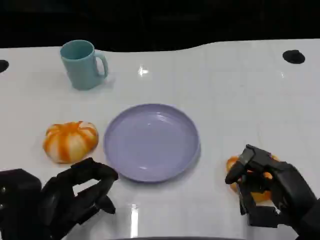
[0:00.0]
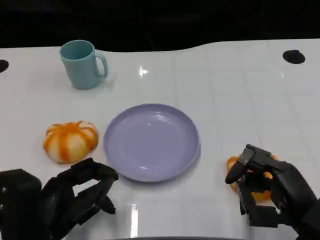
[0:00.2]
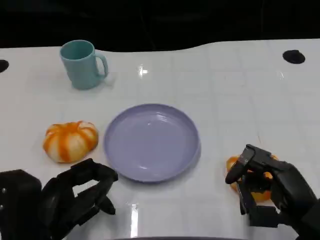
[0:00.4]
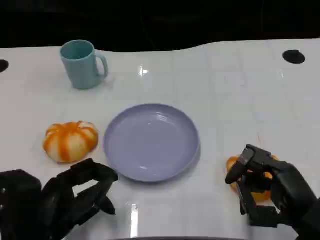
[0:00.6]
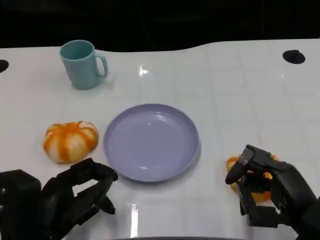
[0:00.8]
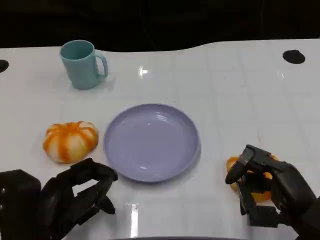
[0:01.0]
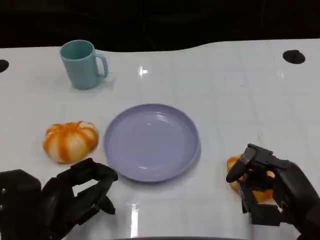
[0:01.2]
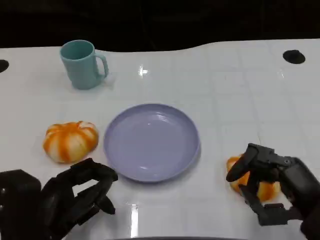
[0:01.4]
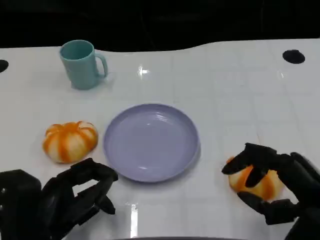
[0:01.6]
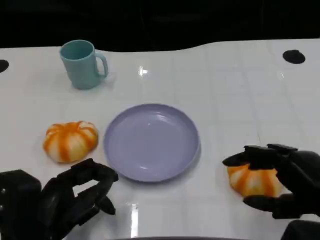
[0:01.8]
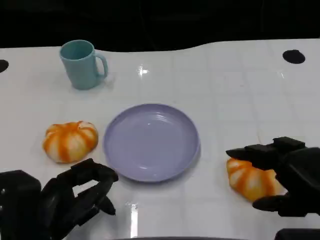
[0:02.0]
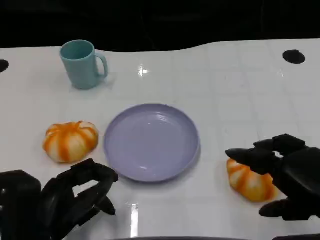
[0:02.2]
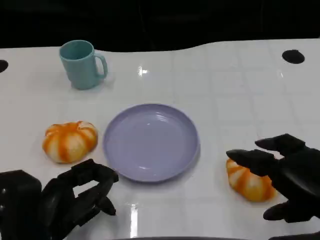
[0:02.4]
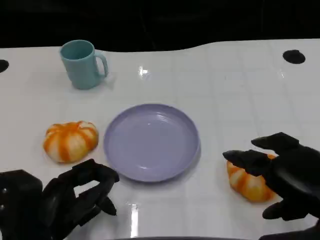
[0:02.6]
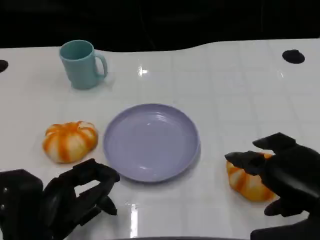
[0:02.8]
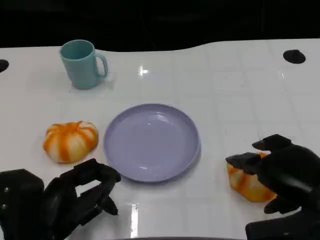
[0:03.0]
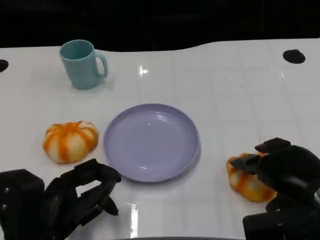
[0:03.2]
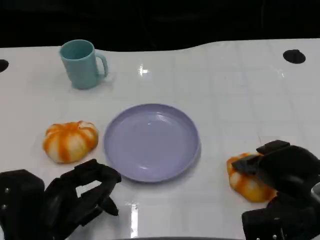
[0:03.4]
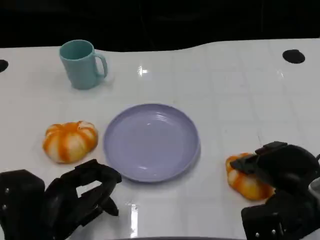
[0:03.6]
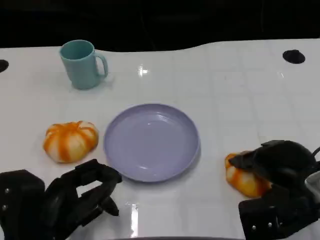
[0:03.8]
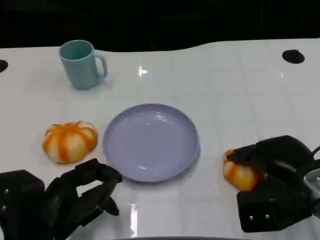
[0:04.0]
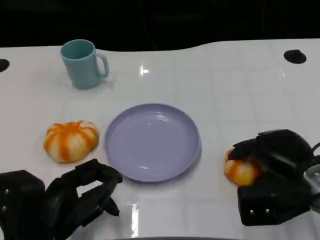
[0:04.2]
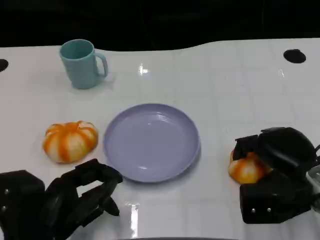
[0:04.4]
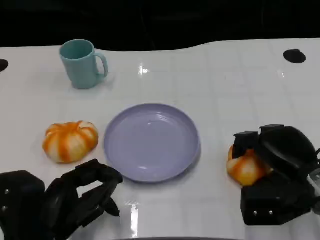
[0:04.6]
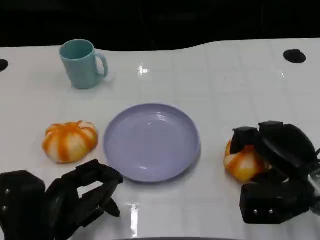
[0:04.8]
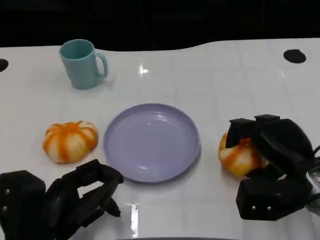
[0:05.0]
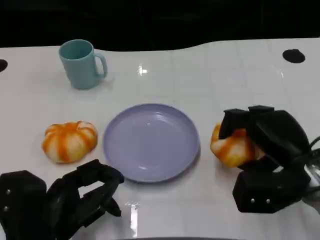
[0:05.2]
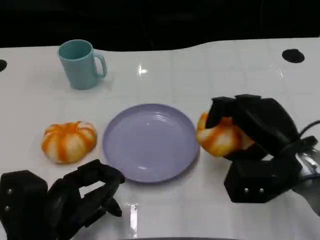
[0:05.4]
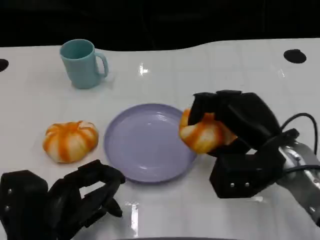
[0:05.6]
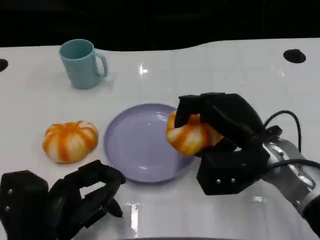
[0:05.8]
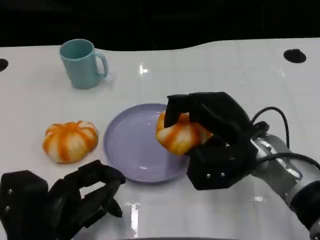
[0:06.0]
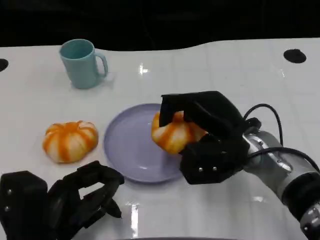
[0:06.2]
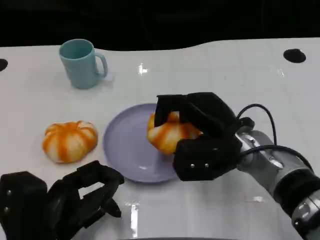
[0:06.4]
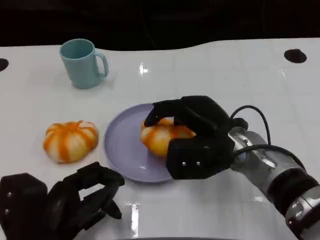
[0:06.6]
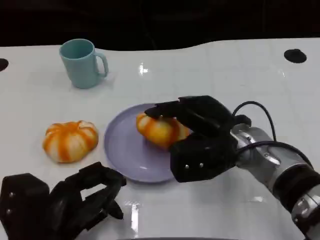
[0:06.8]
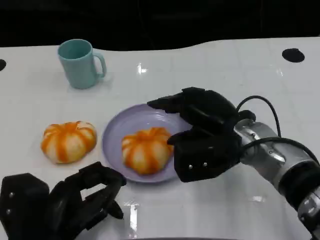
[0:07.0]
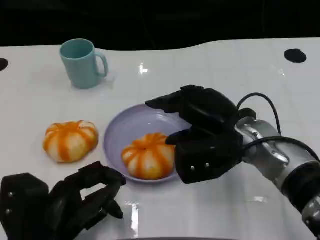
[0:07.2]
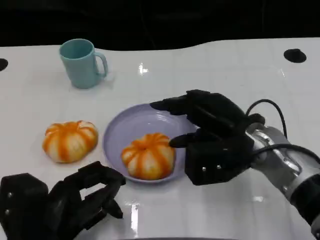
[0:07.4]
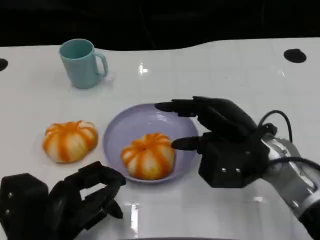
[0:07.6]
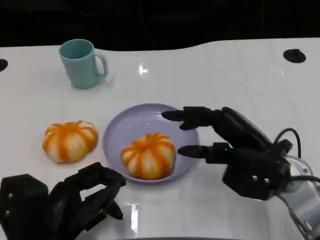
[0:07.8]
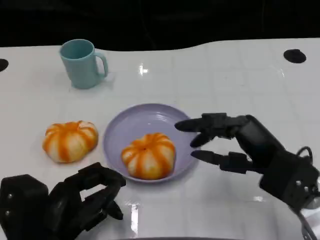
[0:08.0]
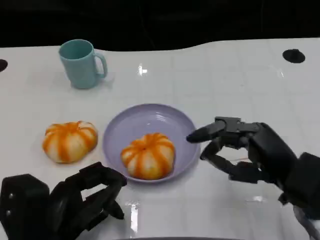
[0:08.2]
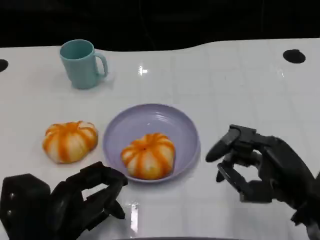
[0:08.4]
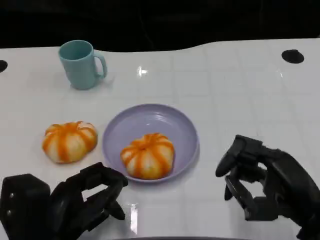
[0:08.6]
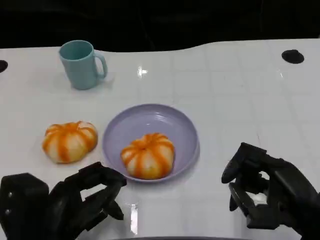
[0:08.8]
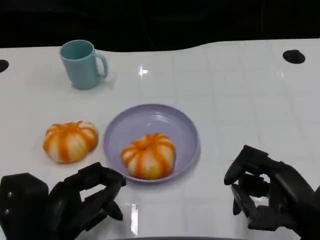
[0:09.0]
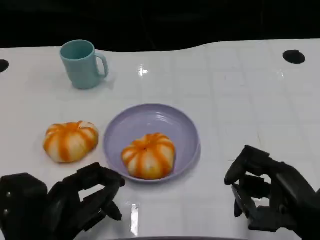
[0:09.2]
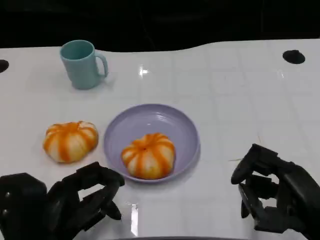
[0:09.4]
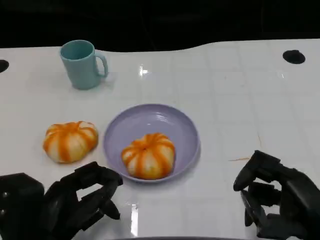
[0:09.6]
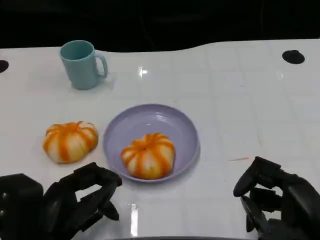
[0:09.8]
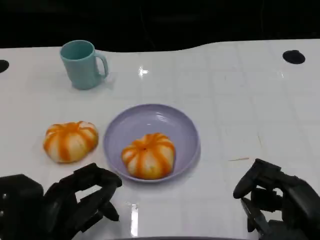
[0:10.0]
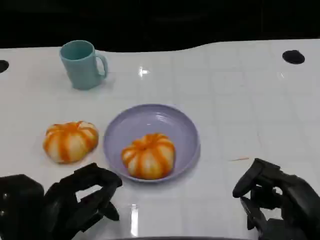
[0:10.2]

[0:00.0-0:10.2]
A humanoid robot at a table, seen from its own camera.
Task of the whole recording: Grasp the bread from the table and place it into the plate.
0:00.0 to 0:01.4: The hands move only a little.
0:03.0 to 0:04.4: The right hand is displaced forward by roughly 5 cm.
0:04.4 to 0:05.8: The right hand travels to the left by approximately 10 cm.
0:05.8 to 0:07.2: The hands stay close to where they were, moving slightly.
0:07.2 to 0:08.8: The right hand travels backward and to the right by about 15 cm.
0:08.8 to 0:10.2: The hands stay close to where they were, moving slightly.

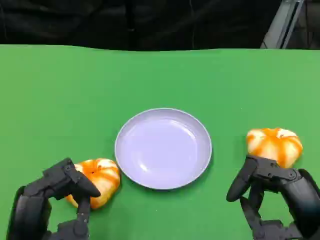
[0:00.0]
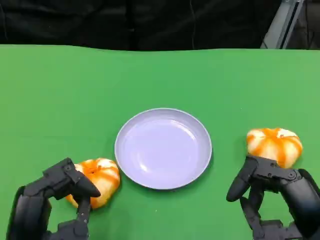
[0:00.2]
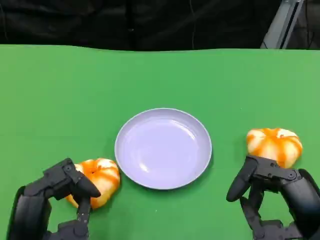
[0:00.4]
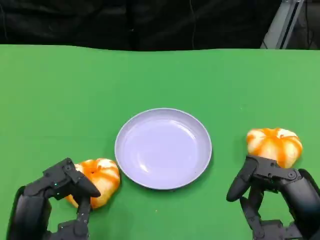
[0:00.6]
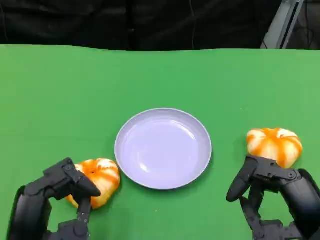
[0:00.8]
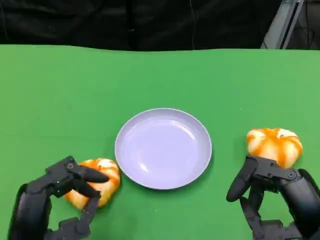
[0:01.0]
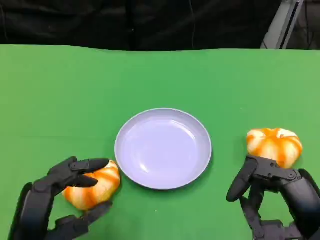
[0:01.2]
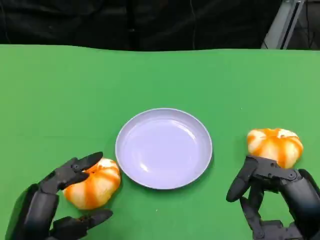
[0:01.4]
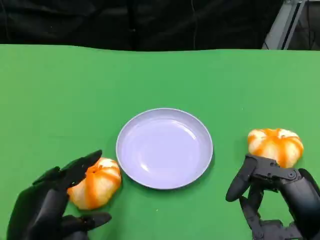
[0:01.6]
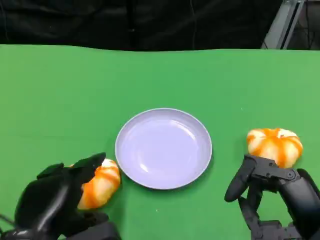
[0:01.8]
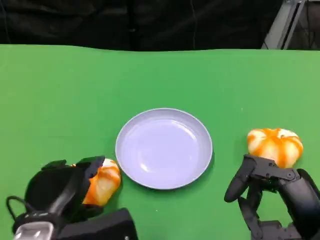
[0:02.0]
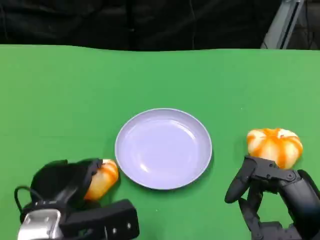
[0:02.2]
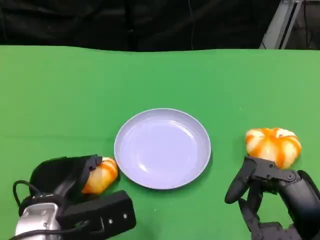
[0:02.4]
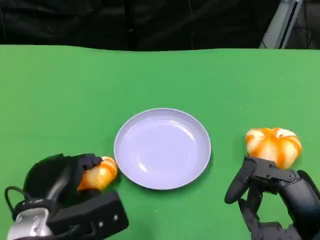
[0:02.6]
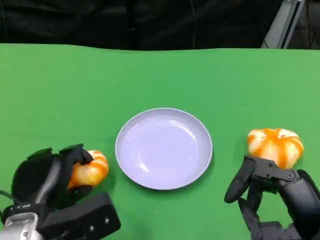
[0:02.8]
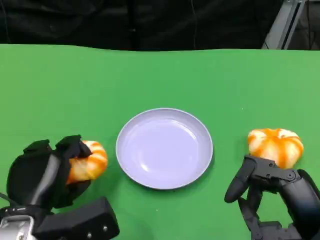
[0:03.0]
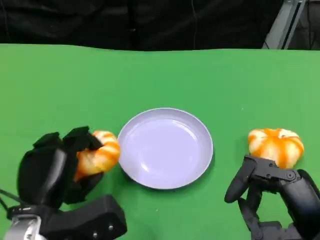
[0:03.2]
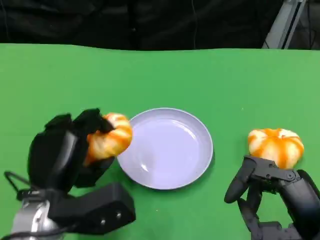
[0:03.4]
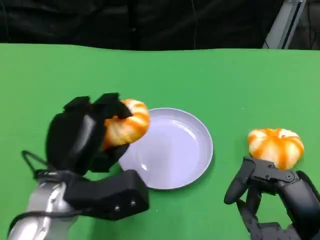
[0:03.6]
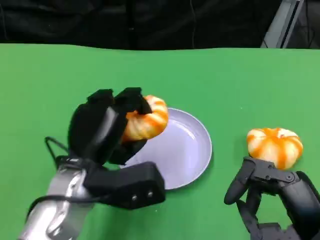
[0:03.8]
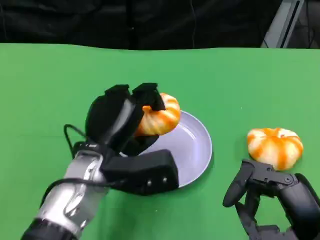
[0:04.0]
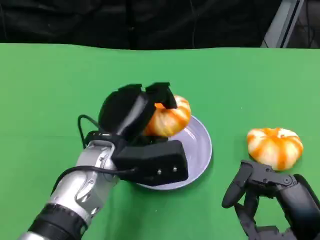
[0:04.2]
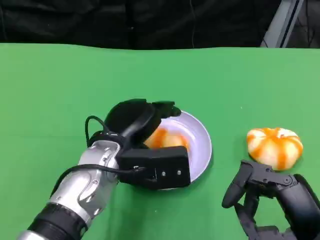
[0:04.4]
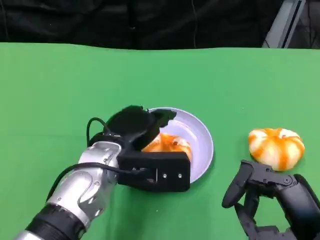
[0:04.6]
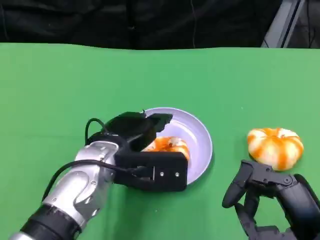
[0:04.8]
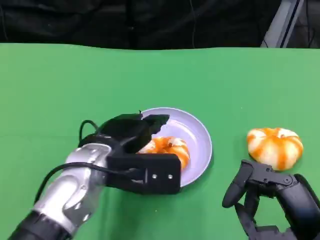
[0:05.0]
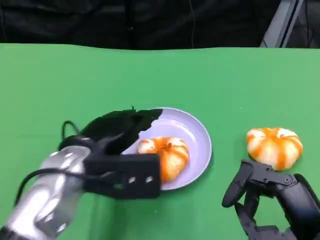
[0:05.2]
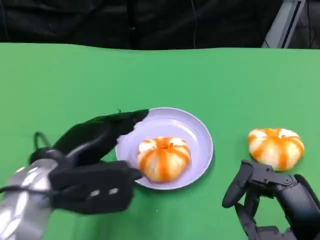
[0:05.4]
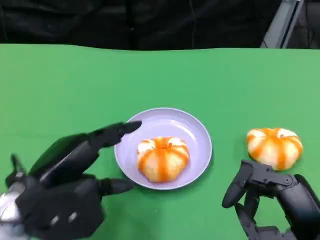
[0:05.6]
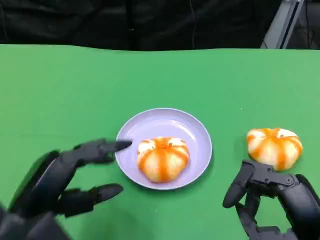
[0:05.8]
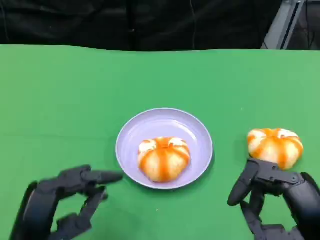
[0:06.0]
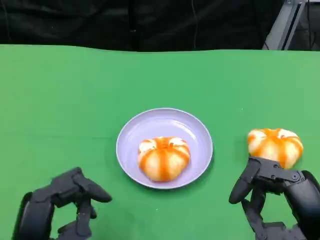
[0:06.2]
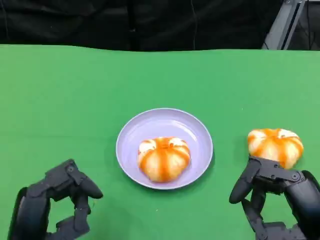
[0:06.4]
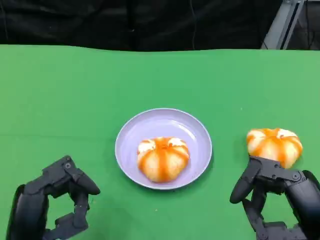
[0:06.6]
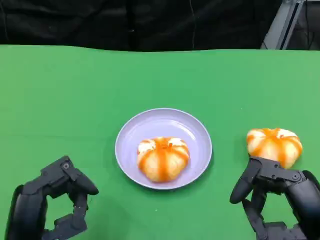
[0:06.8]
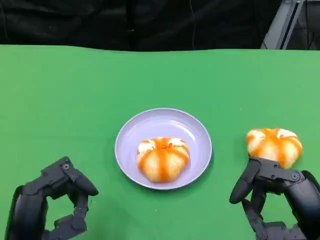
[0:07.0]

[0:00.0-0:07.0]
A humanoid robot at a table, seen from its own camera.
Task of the whole recording: Grasp the bread from the table and place it into the plate.
0:01.4 to 0:02.8: The left hand moves forward, about 5 cm.
0:02.8 to 0:04.2: The left hand travels to the right and forward by approximately 15 cm.
0:04.2 to 0:05.6: The left hand heads to the left and backward, covering approximately 15 cm.
0:05.6 to 0:07.0: The left hand shifts roughly 10 cm backward and downward.
